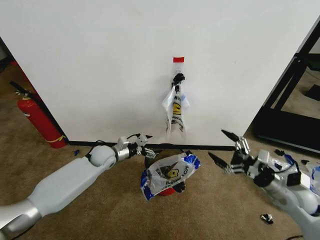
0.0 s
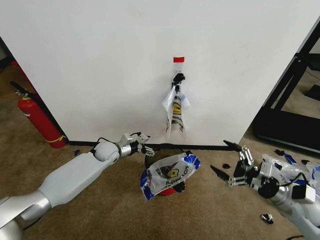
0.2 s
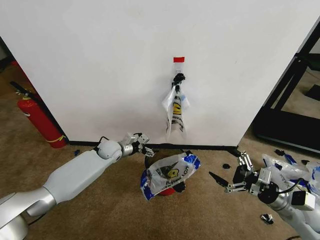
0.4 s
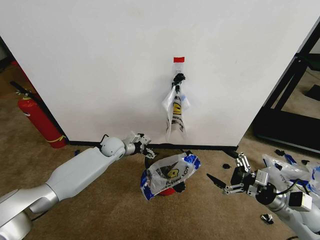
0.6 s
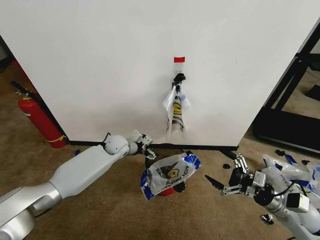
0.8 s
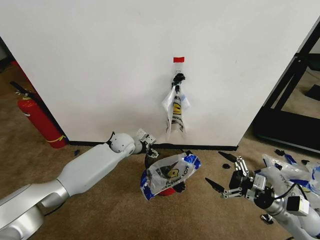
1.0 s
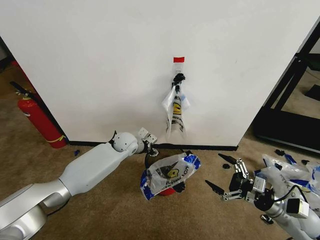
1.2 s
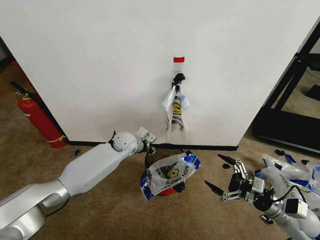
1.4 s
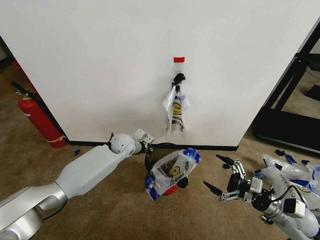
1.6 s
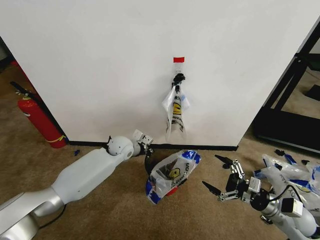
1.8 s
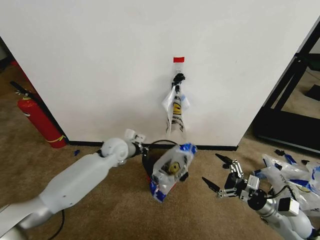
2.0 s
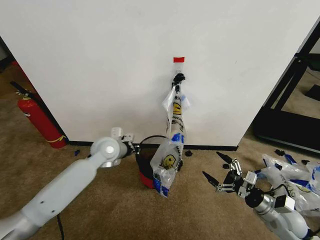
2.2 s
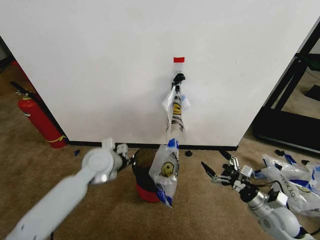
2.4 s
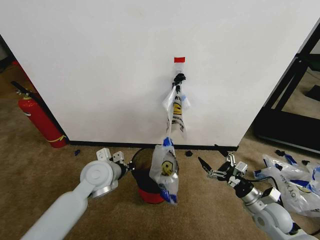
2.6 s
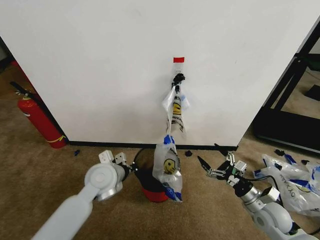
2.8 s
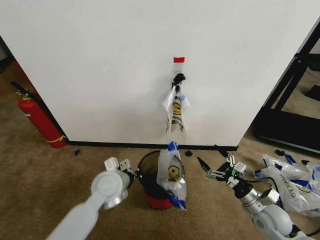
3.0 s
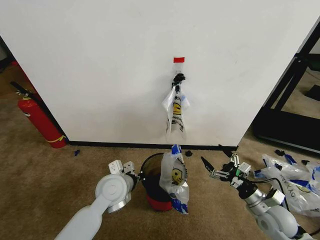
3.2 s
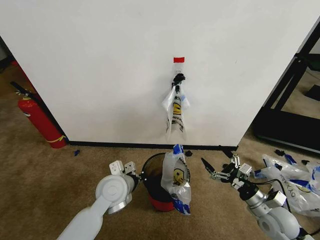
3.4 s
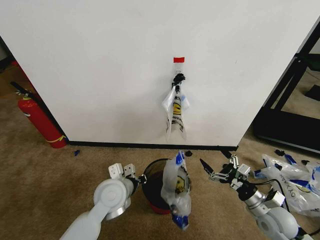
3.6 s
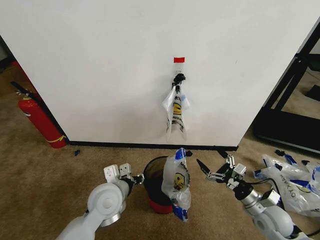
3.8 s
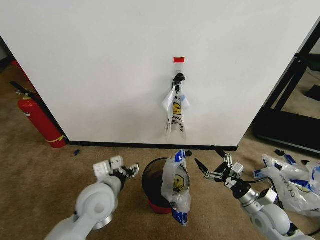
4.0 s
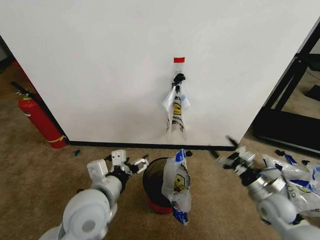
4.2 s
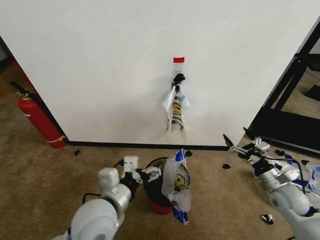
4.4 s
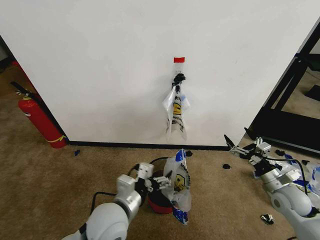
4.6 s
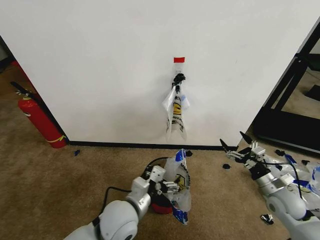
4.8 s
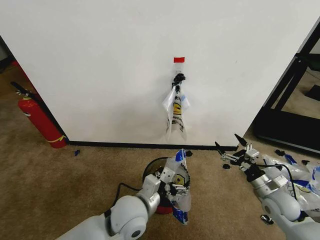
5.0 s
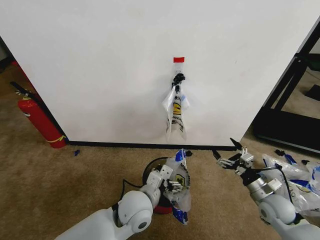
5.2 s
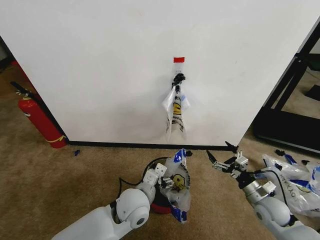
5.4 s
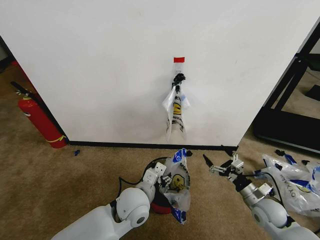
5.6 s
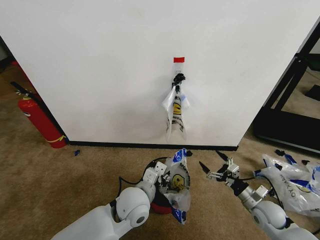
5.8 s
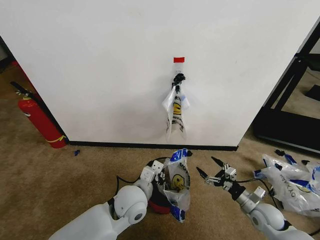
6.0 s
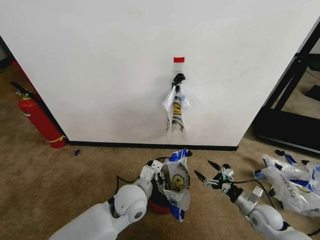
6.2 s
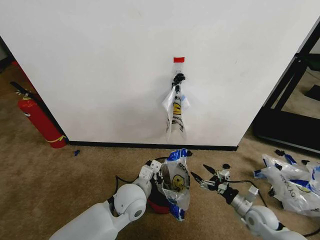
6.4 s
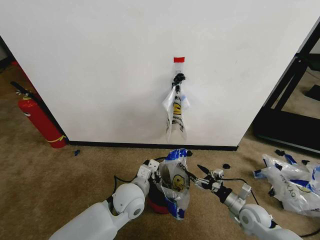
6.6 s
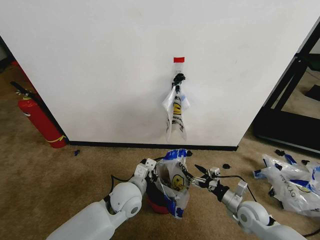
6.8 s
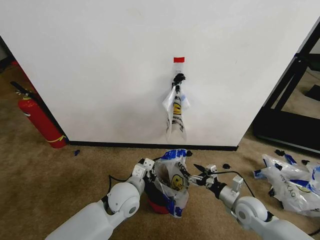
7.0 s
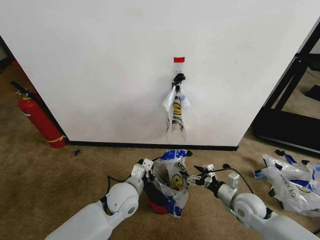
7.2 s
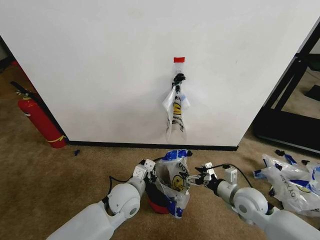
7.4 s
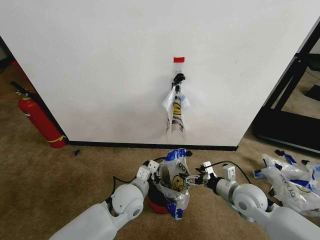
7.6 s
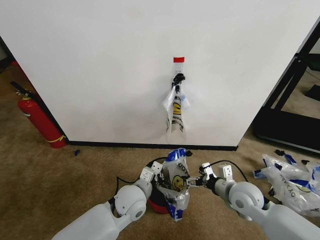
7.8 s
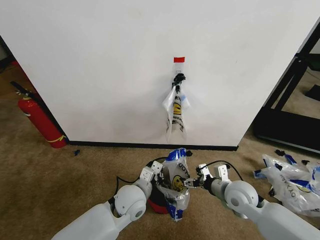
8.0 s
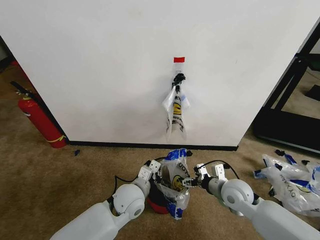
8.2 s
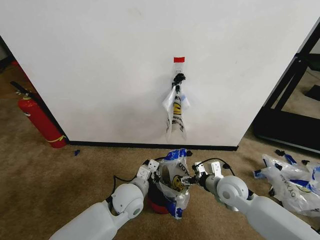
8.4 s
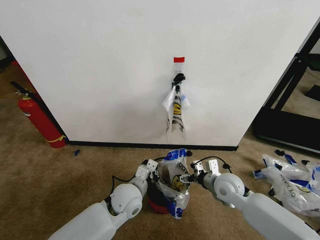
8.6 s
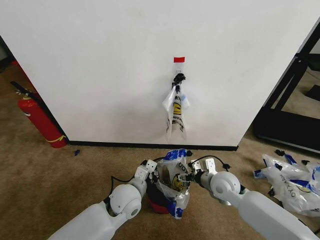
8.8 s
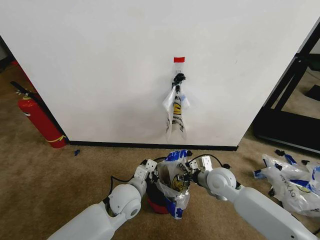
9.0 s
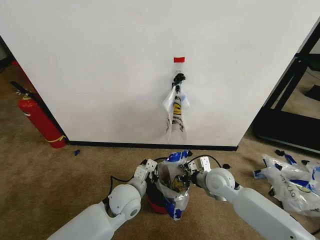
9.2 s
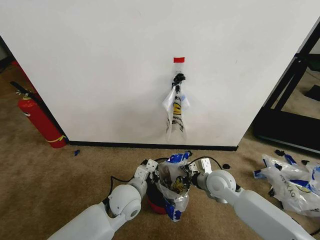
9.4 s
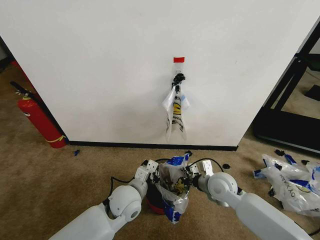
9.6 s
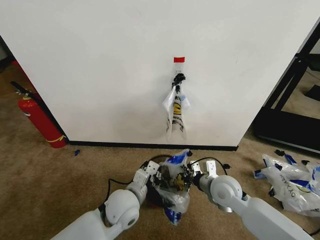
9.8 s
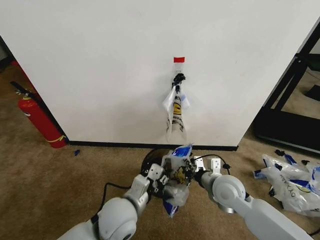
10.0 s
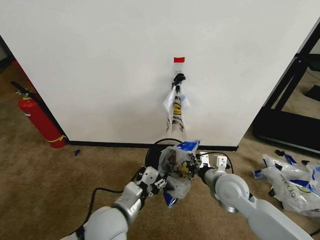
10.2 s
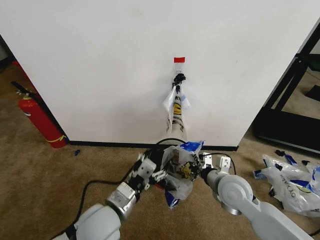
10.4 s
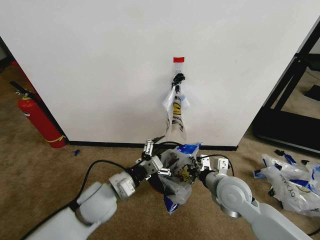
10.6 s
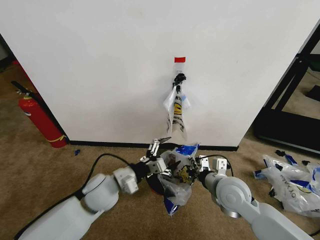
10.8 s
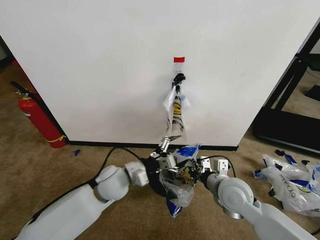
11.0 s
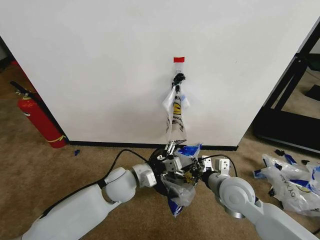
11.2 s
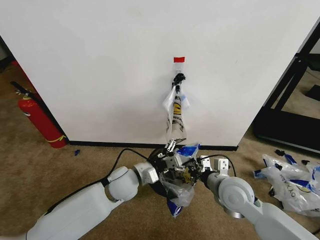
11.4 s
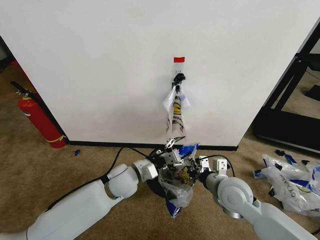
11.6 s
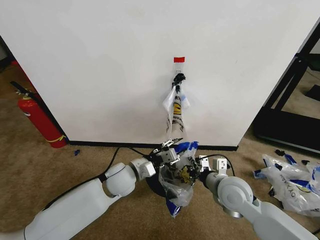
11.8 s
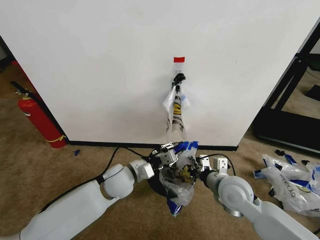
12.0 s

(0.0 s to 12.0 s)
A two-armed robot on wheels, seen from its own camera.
Task of the whole recording: Pick up the garbage bag from the wall and place it over the trash bin.
0.0 s - 1.6 s: The left gripper moves to the right, roughly 10 cm, and closes, while the right gripper shifts by about 5 cm.
1.6 s - 3.0 s: The right gripper goes some 5 cm to the left; the left gripper is displaced backward by approximately 20 cm.
3.0 s - 4.4 s: The left gripper is displaced backward and upward by about 15 cm, and opens up; the right gripper is displaced to the right by roughly 5 cm.
4.4 s - 6.0 s: The left gripper heads downward, forward and to the right, covering some 15 cm, and closes up; the right gripper shifts some 10 cm downward.
6.0 s - 7.6 s: The right gripper moves upward and to the left, approximately 15 cm.
7.6 s - 9.0 s: The right gripper goes some 10 cm to the left and forward.
9.0 s - 10.4 s: The two grippers go about 10 cm backward and upward. The right gripper closes up. Meanwhile the left gripper opens up.
10.4 s - 12.0 s: The left gripper travels forward by some 15 cm, and closes up.

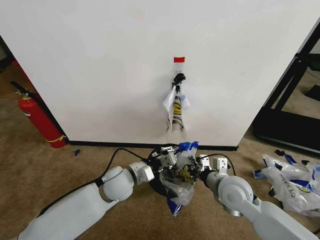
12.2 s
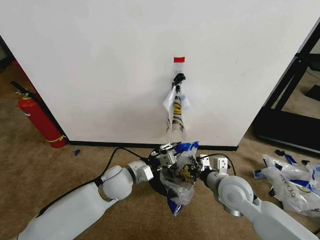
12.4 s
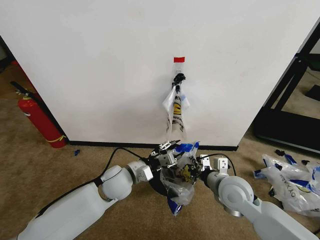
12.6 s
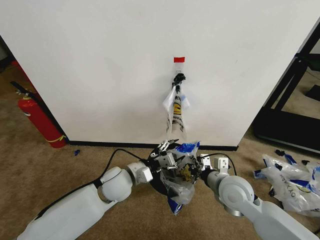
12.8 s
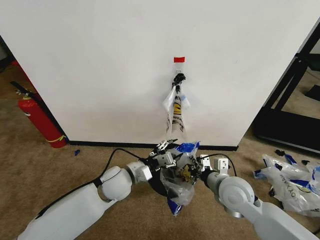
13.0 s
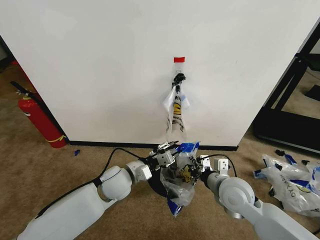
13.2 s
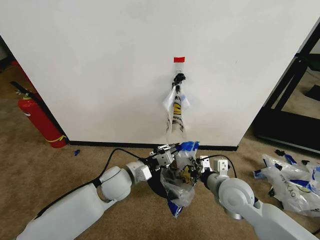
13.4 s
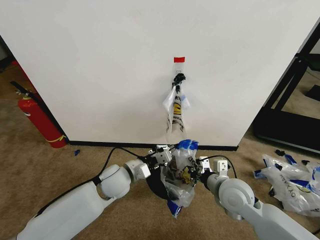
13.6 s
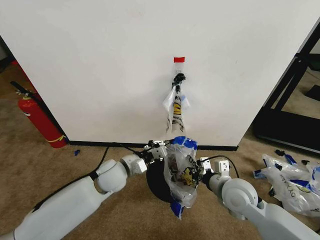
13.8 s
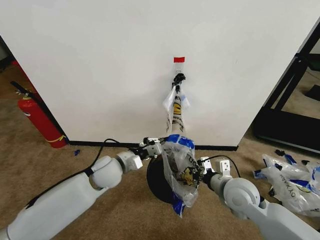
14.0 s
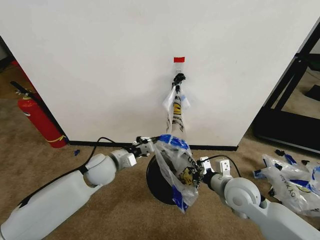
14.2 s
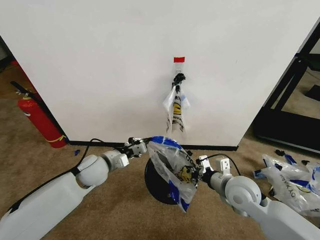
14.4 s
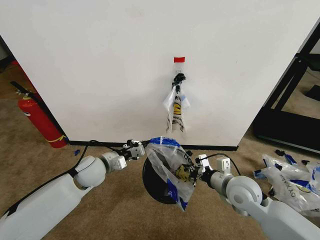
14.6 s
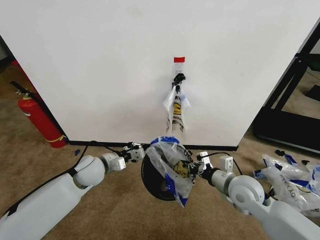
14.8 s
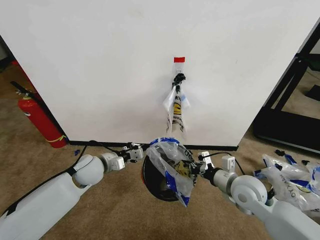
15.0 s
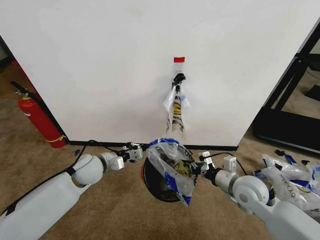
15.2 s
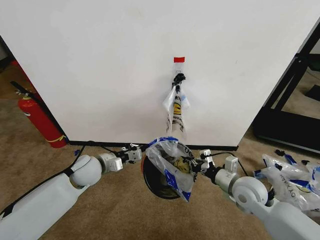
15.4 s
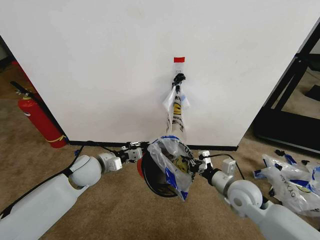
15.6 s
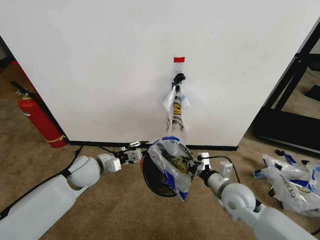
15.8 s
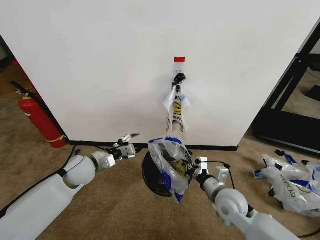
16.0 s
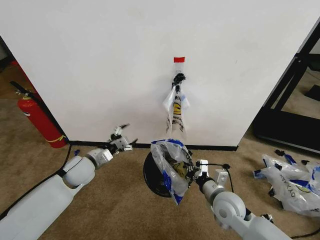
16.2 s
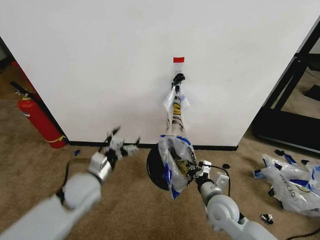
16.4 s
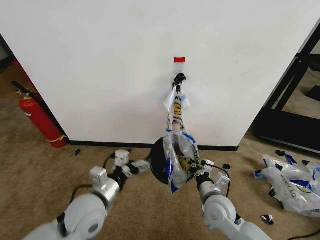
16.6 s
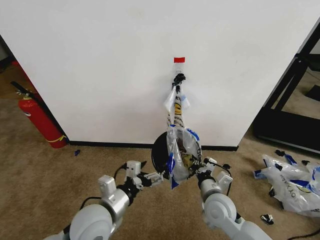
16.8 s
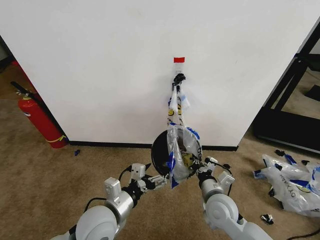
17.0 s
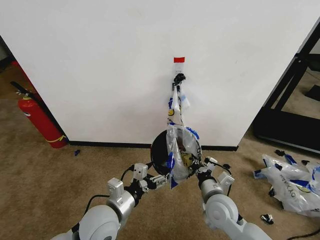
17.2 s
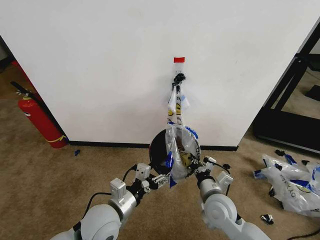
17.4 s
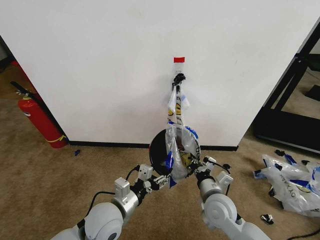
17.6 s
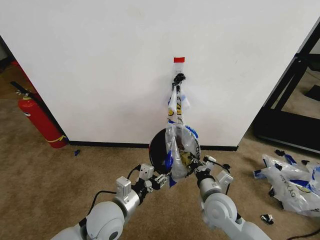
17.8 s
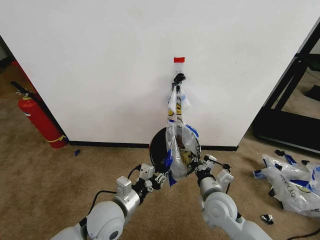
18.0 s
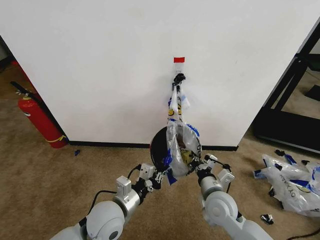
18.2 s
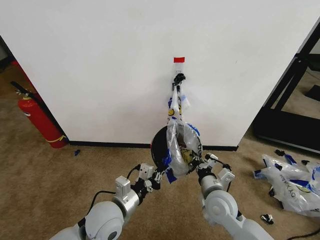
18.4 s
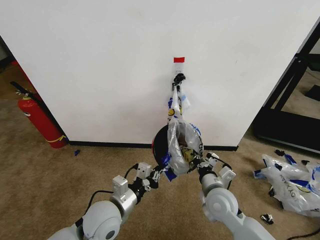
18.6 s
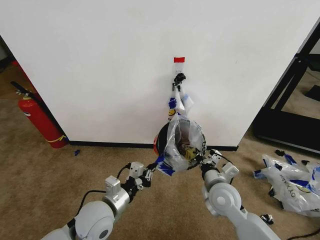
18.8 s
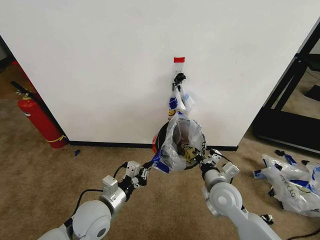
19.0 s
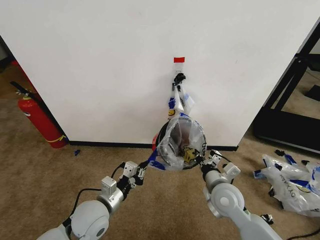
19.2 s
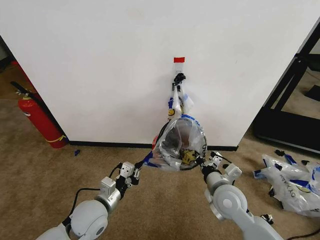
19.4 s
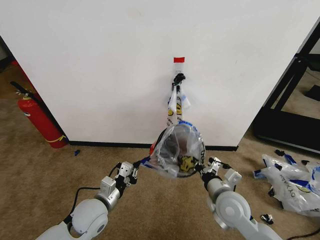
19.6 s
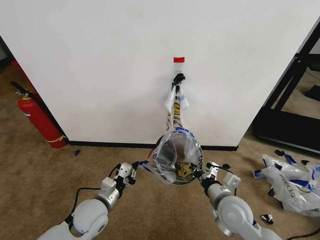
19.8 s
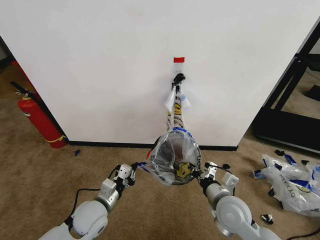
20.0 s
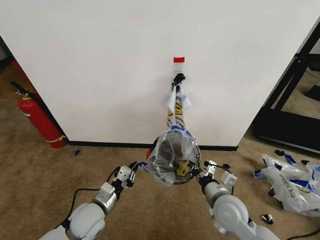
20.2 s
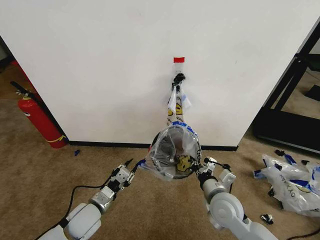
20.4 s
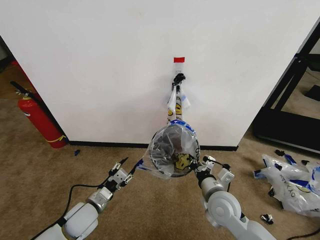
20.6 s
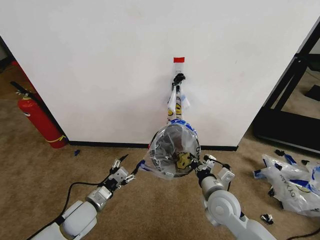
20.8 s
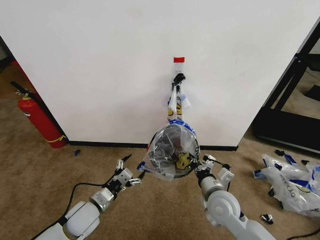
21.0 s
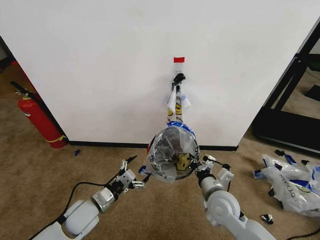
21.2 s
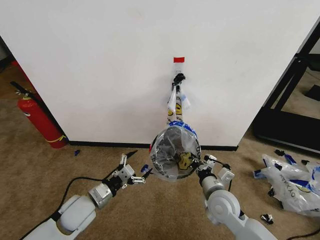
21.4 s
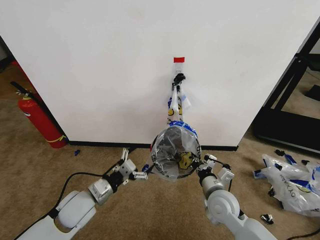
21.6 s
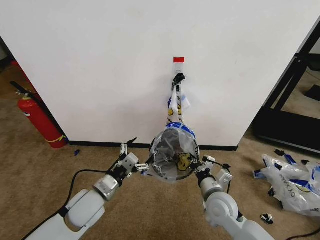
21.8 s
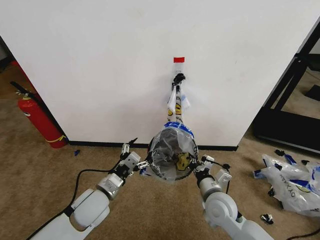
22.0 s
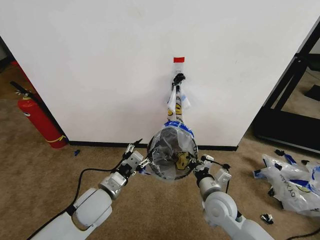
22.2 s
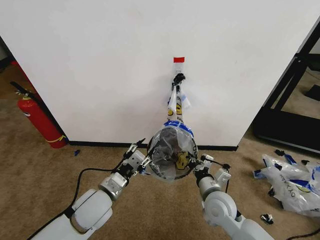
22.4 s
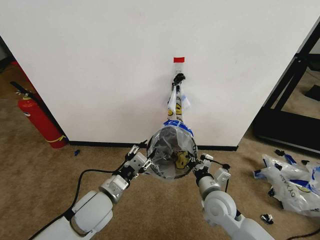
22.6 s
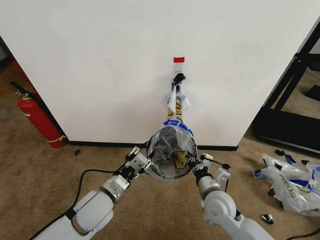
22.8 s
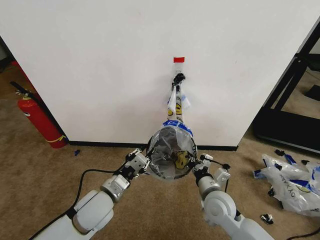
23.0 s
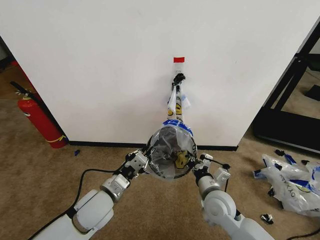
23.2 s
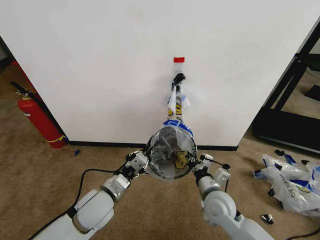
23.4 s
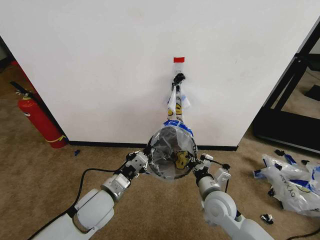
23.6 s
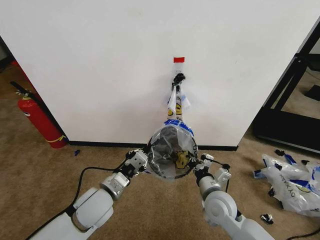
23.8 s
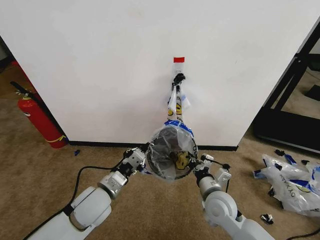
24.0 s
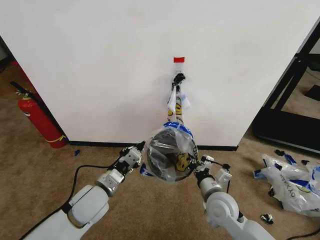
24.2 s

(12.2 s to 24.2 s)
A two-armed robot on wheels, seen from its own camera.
Task of the whole recording: Pick up the garbage bag from the wall and place it over the trash bin.
12.2 s - 13.8 s: The left gripper opens, then closes once more.
13.8 s - 15.2 s: The left gripper moves to the left, some 10 cm. The right gripper ends up roughly 5 cm from where it was.
15.2 s - 16.6 s: The left gripper heads backward, covering some 15 cm, and opens up. The right gripper shifts roughly 10 cm to the left and downward.
16.6 s - 18.2 s: The left gripper ends up about 5 cm from where it was, and closes its fingers.
18.2 s - 19.8 s: The left gripper is displaced to the left by approximately 5 cm.
19.8 s - 21.2 s: The left gripper opens its fingers.
21.2 s - 22.6 s: The left gripper travels upward and to the right by about 10 cm, and closes its fingers.
22.6 s - 24.2 s: The left gripper closes its fingers.
